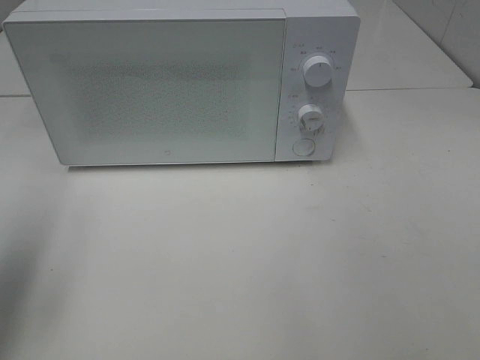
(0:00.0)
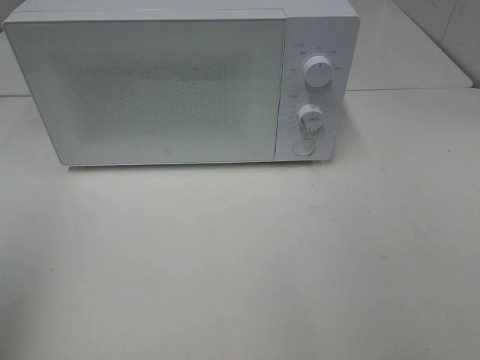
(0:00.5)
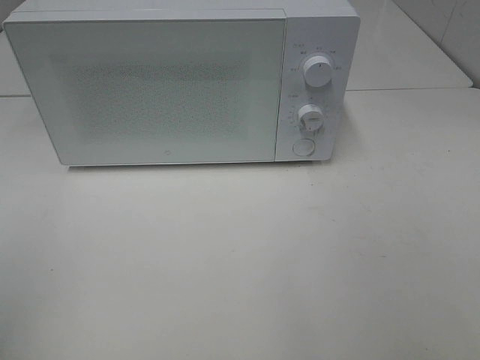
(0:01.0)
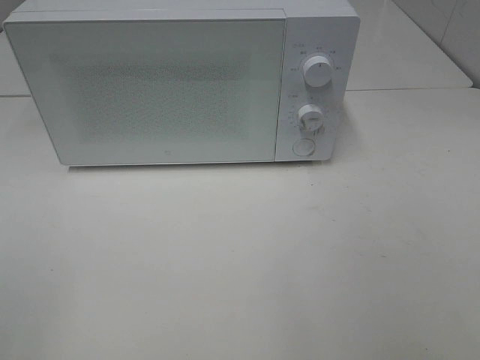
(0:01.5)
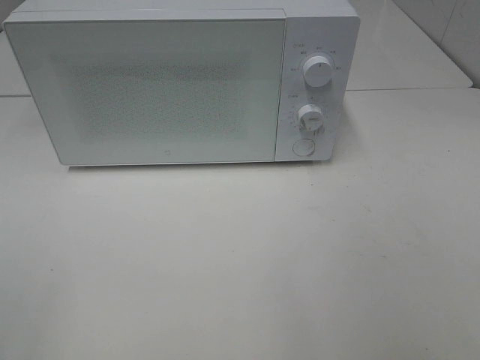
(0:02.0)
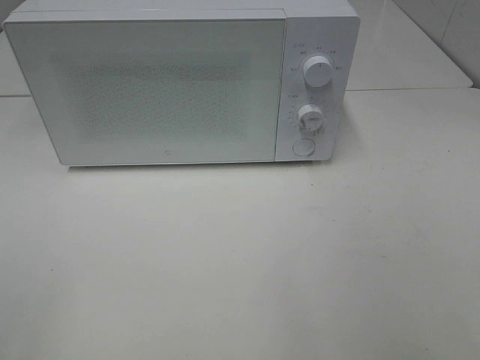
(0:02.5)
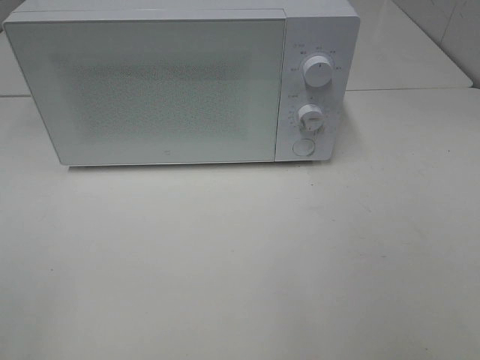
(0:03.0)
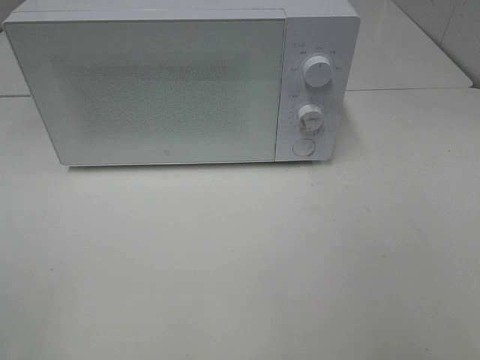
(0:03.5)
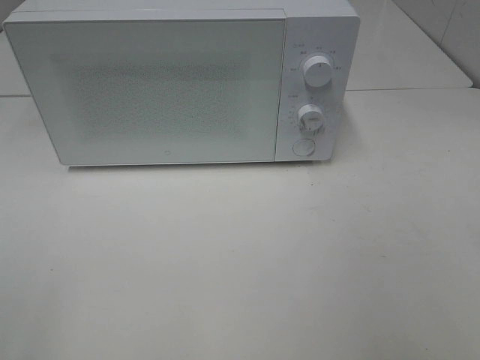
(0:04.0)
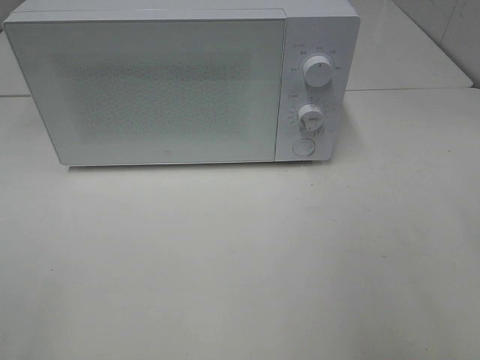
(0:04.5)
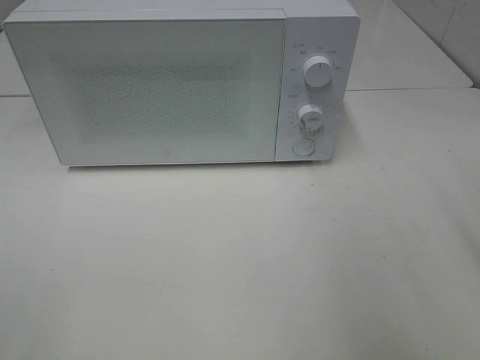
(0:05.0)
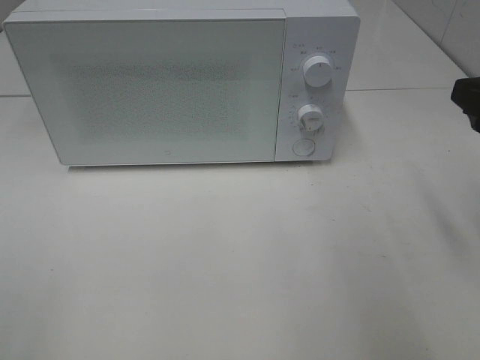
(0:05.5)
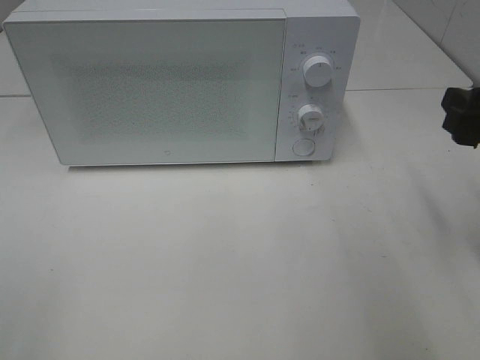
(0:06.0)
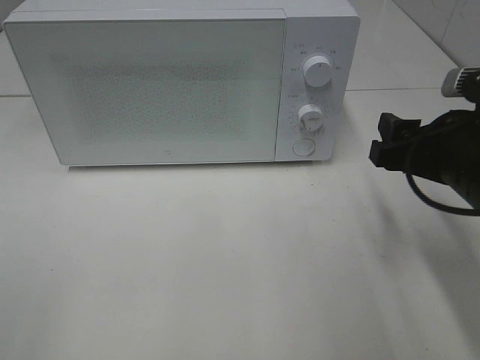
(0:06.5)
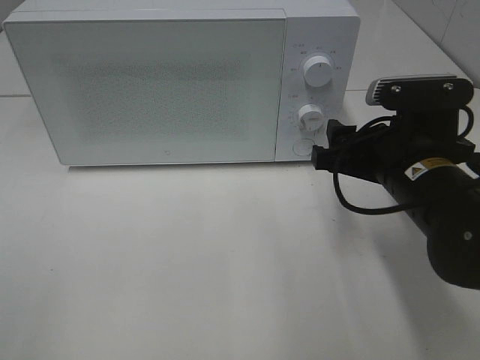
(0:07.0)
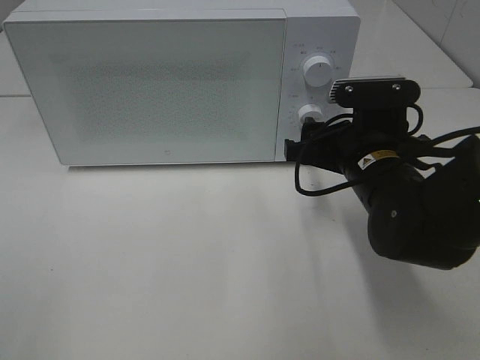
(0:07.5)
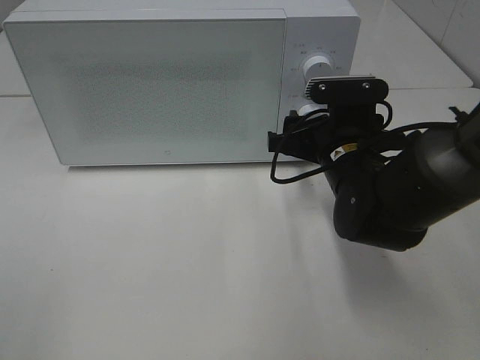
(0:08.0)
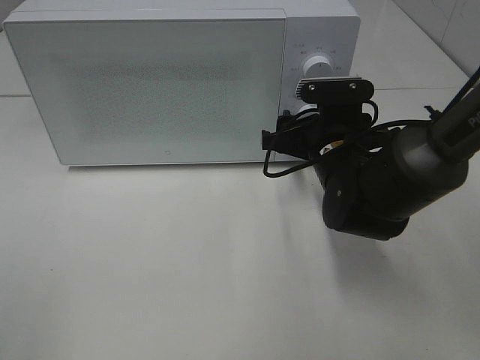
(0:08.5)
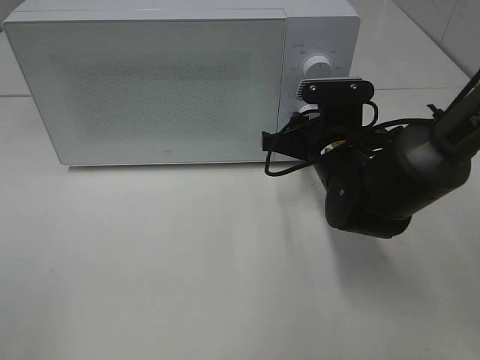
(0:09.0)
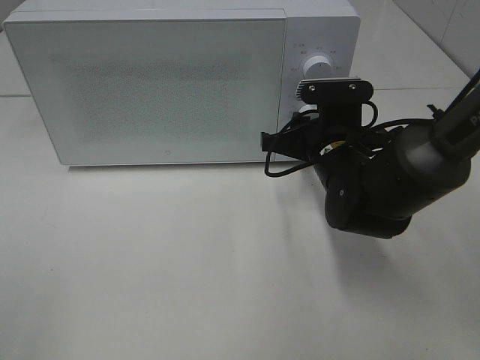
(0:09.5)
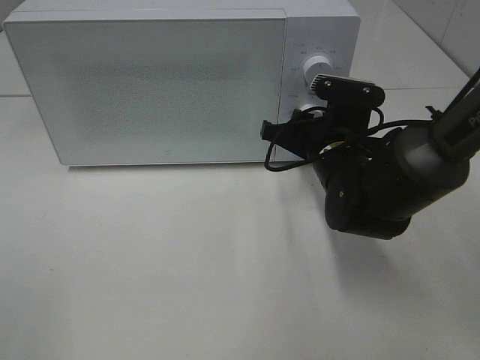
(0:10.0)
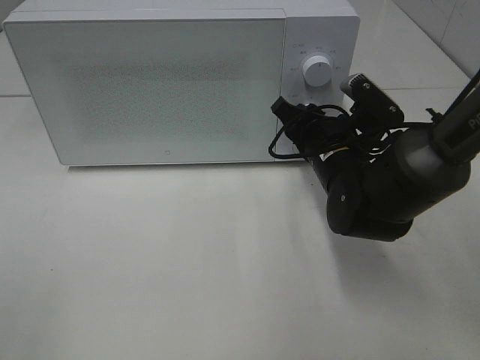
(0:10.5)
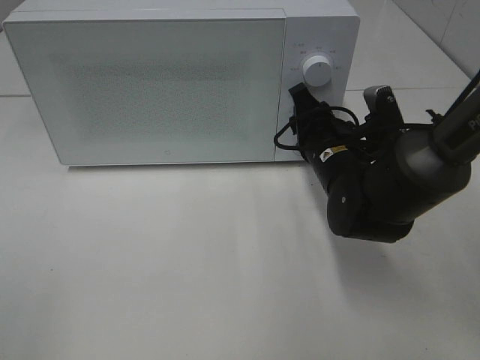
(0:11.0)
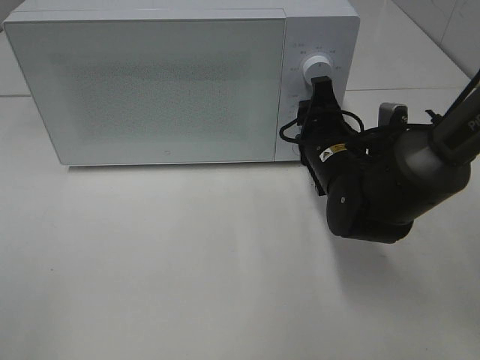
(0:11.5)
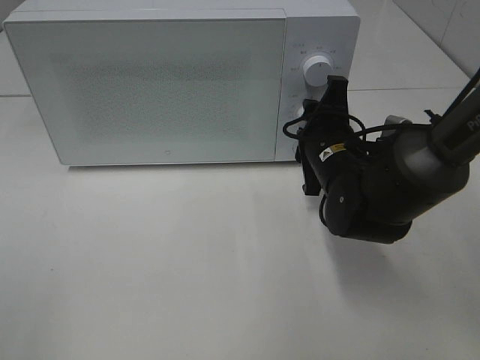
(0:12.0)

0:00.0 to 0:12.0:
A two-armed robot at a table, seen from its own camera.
Task of the whole recording: Heat Sandwich.
0:00.0 to 0:02.0: The left gripper moves backward, about 20 cm.
0:04.0 to 0:06.0: The right gripper heads forward and downward, covering about 20 cm.
0:06.0 to 0:08.0: The right gripper moves to the left, forward and downward, roughly 20 cm.
0:08.0 to 0:10.0: The right gripper closes up.

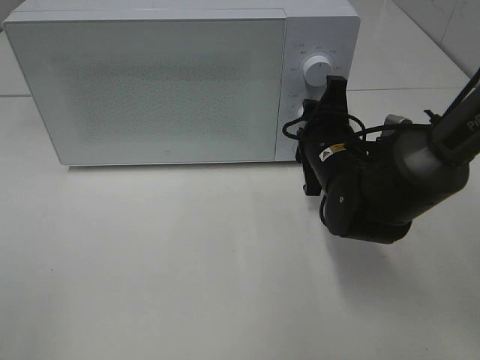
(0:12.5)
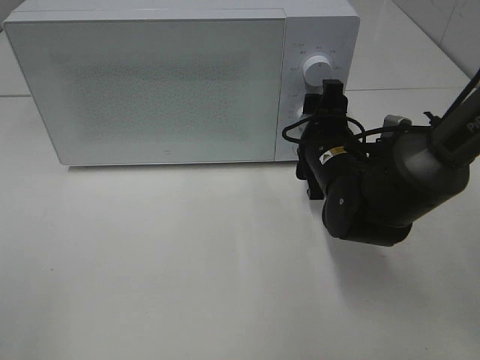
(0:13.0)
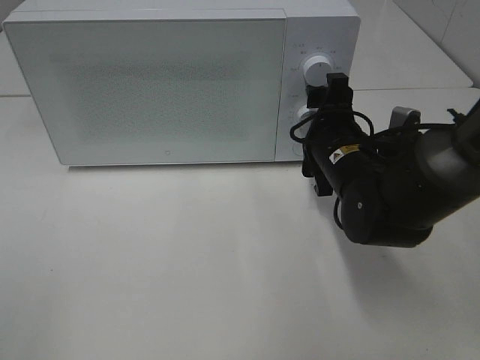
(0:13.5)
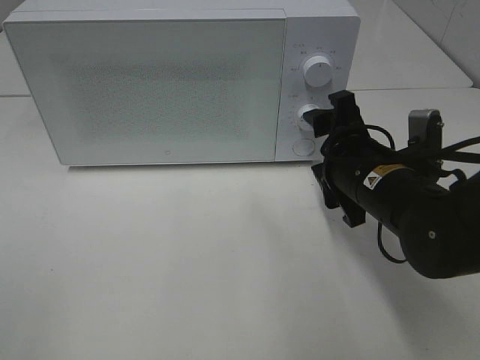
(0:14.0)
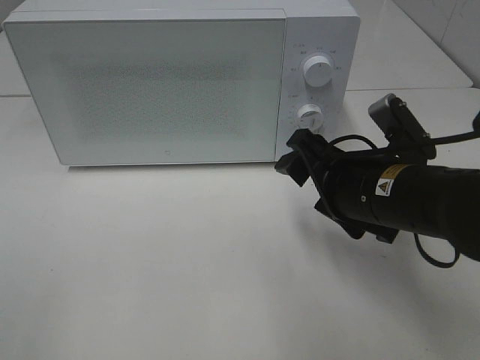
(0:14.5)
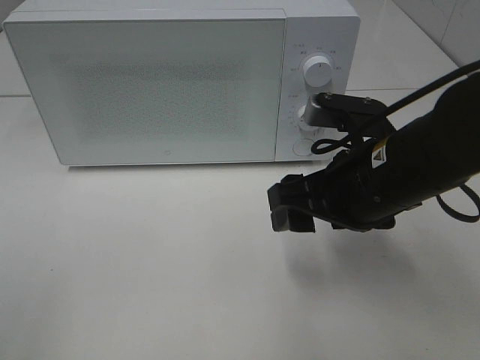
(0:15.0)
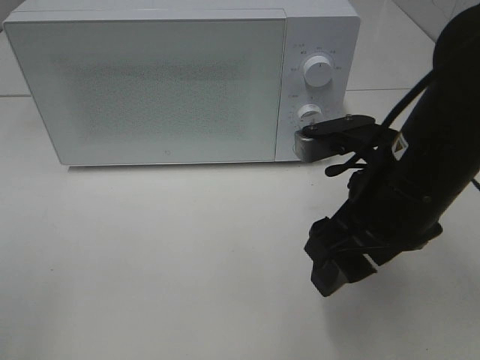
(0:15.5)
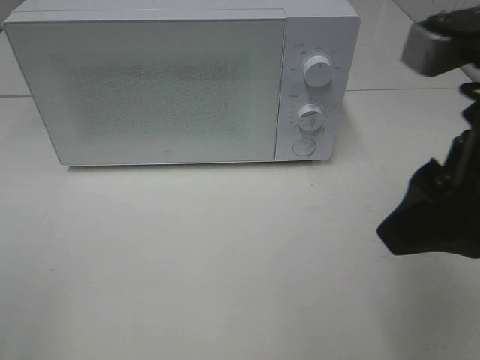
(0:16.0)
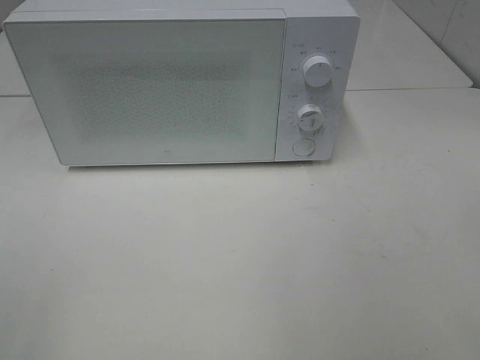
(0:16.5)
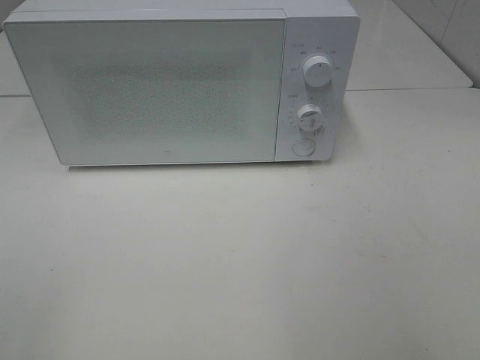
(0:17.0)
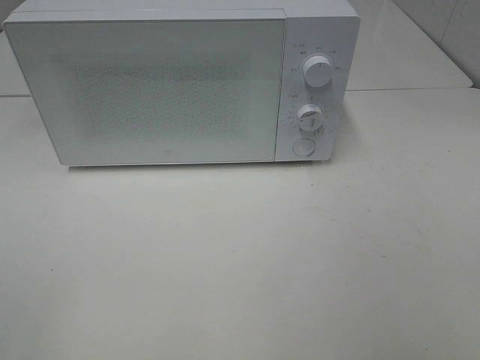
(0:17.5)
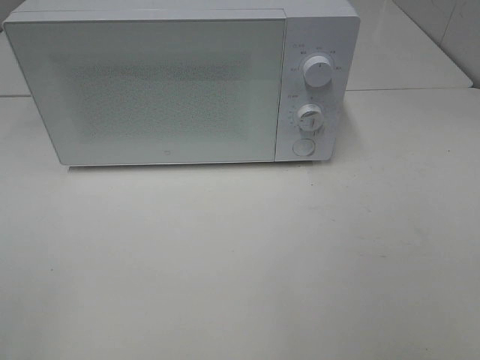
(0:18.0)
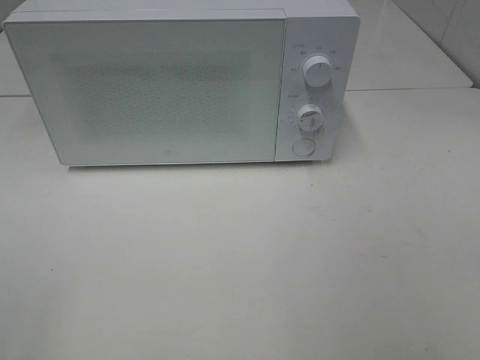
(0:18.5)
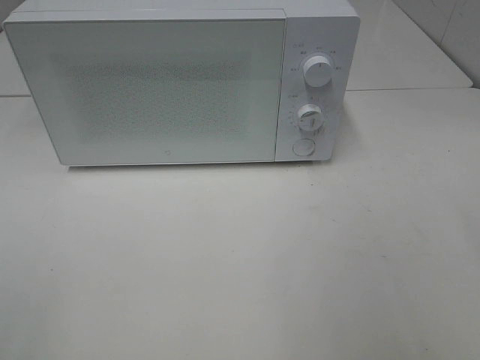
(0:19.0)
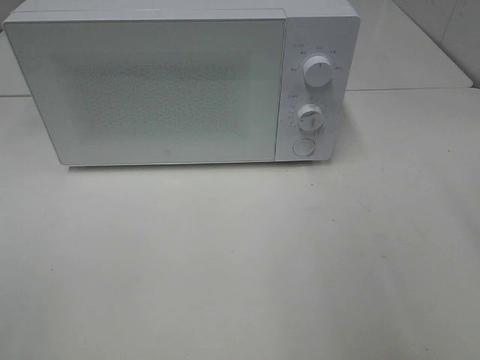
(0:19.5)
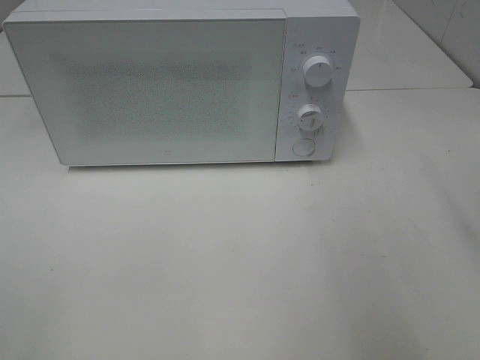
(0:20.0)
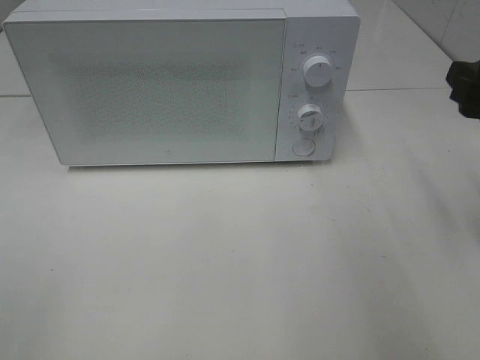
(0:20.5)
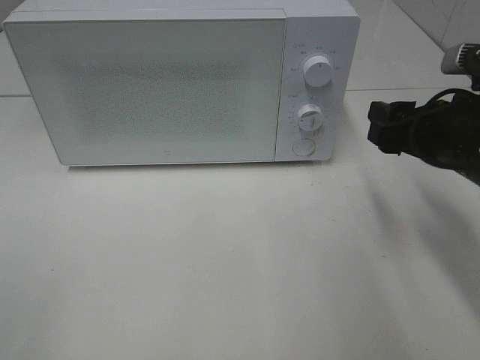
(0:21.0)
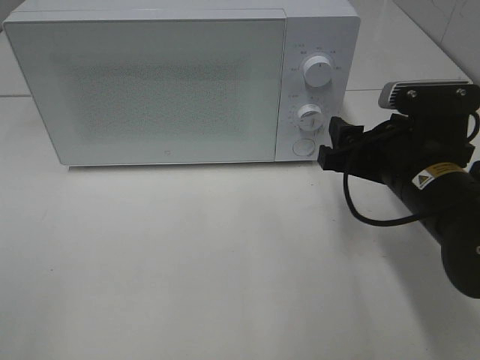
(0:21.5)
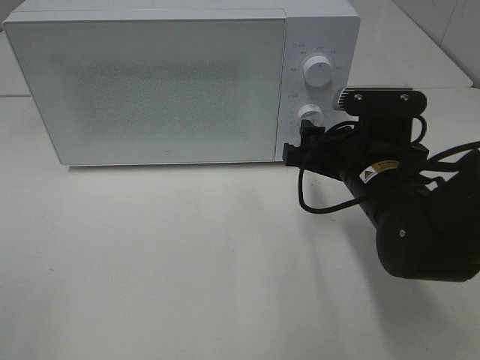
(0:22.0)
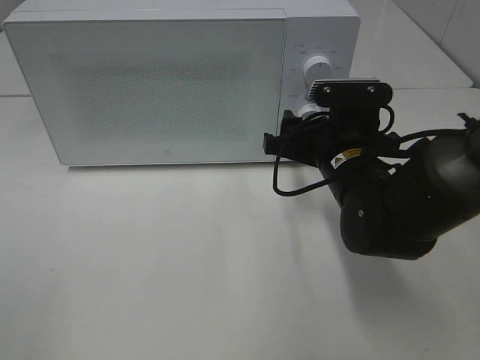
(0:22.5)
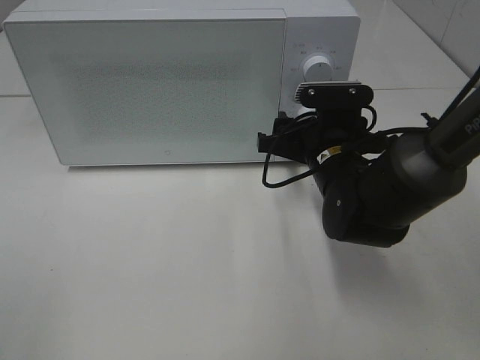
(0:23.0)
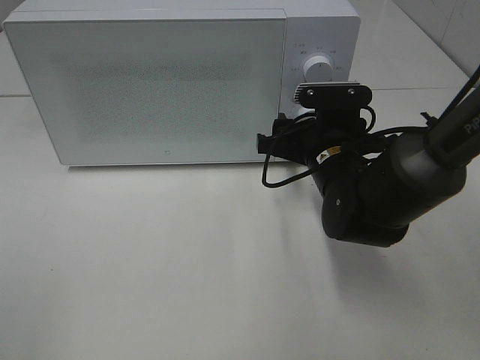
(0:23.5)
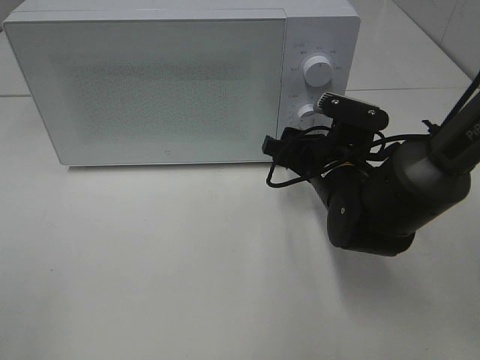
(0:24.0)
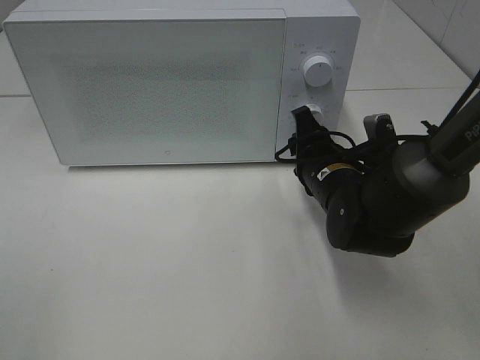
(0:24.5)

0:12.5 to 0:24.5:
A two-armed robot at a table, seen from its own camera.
Task of the whole recording: Heat Sandwich.
0:12.5 to 0:14.5: The right gripper travels backward by about 10 cm, and opens.
0:14.5 to 0:16.5: The right gripper moves upward, backward and to the right, roughly 30 cm.
0:18.5 to 0:20.5: The right gripper travels forward by some 20 cm.
0:20.5 to 0:22.5: The right gripper goes some 20 cm to the left, downward and forward.

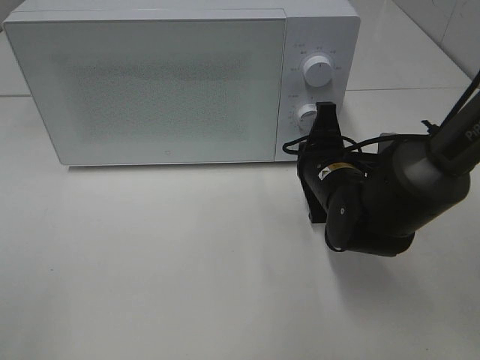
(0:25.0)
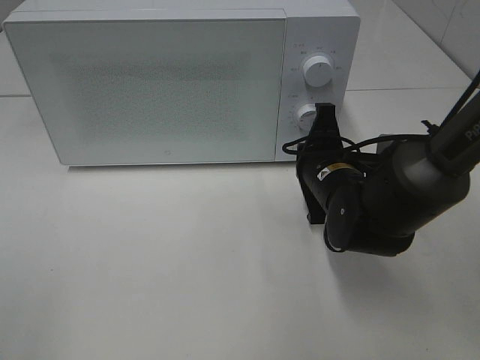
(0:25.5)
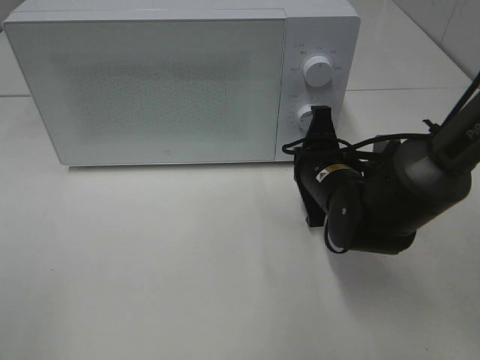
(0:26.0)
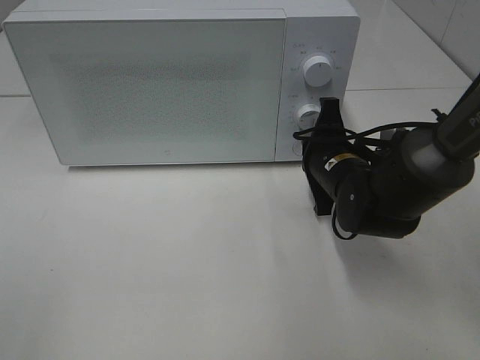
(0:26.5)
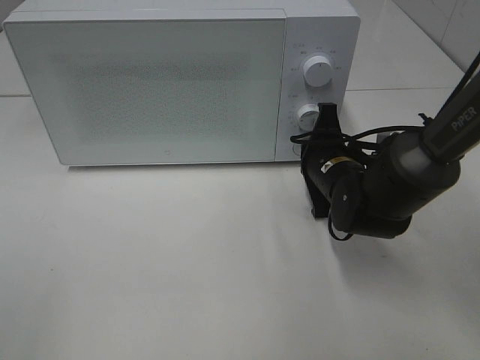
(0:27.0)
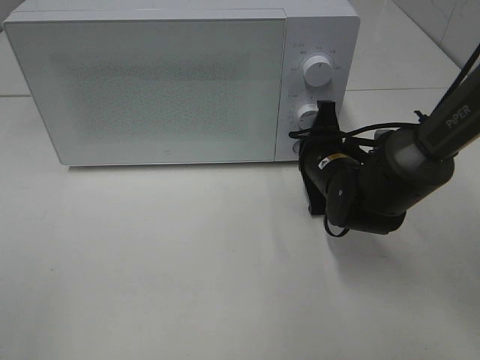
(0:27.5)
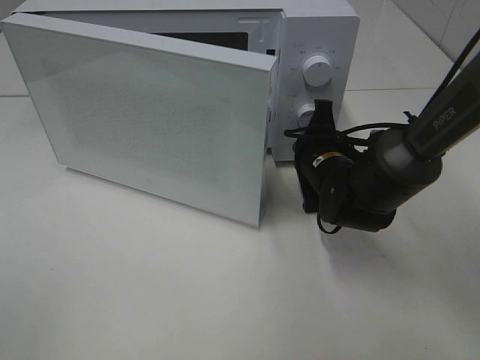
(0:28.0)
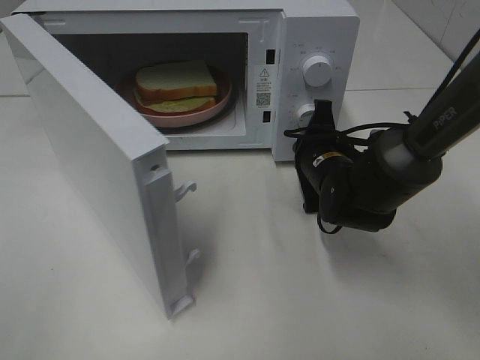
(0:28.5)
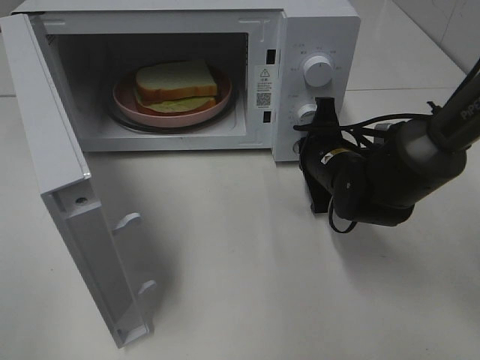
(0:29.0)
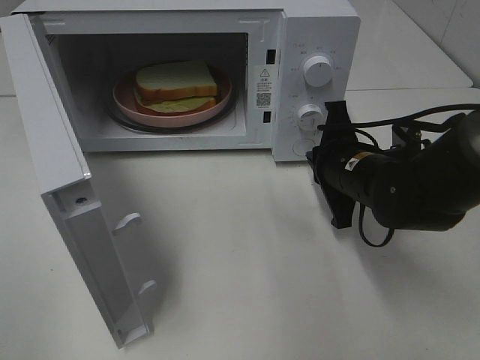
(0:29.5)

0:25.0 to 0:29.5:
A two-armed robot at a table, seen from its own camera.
Task of the whole recording: Heat Sandwich.
0:25.0 to 0:27.0: The grippers move only a little.
